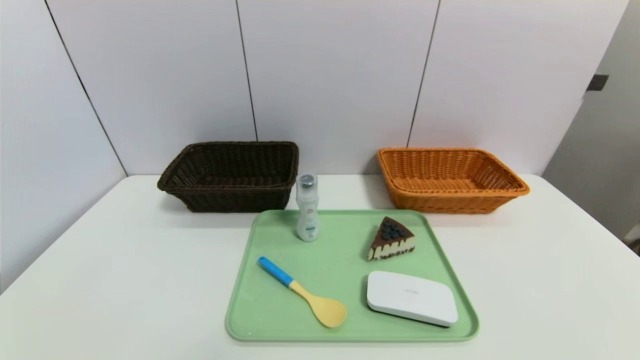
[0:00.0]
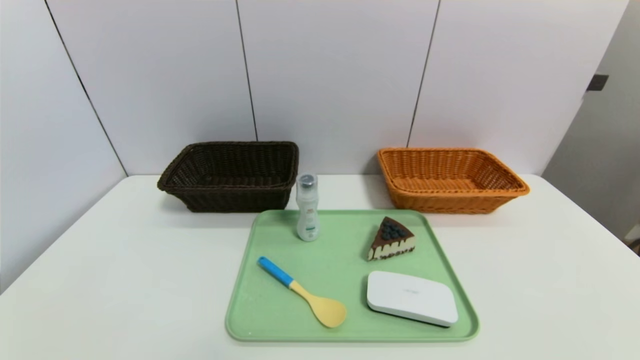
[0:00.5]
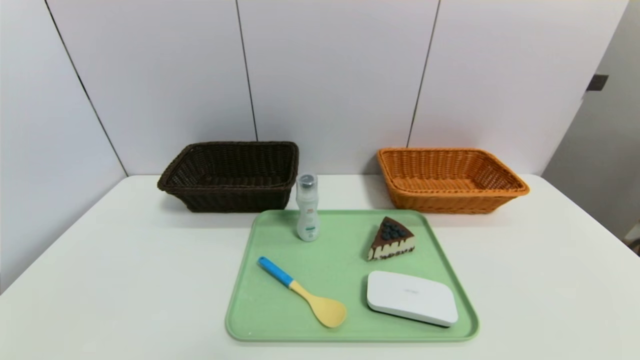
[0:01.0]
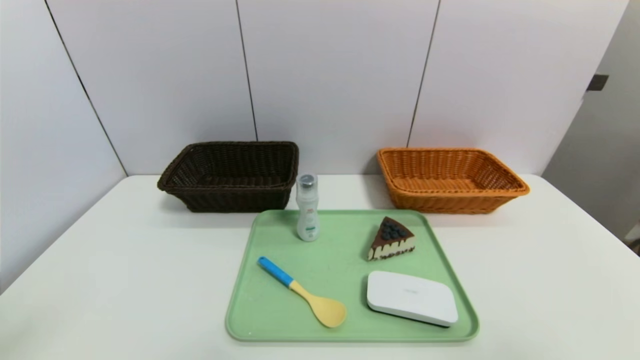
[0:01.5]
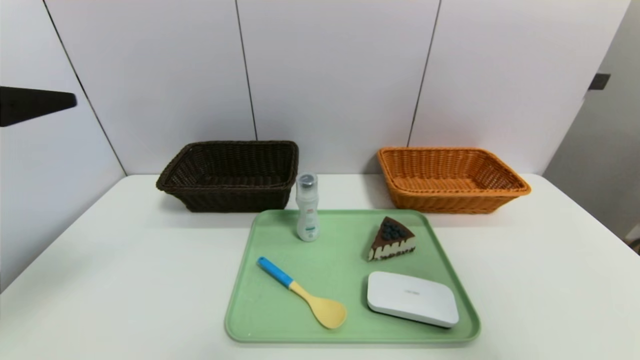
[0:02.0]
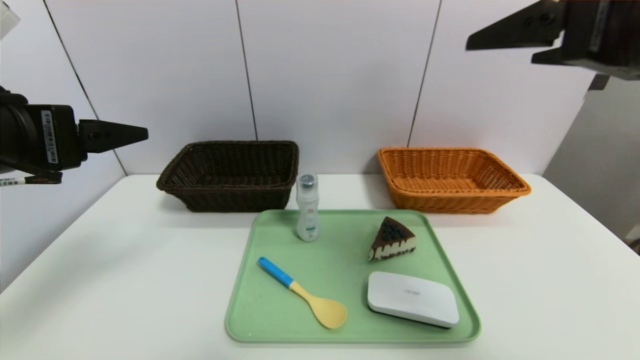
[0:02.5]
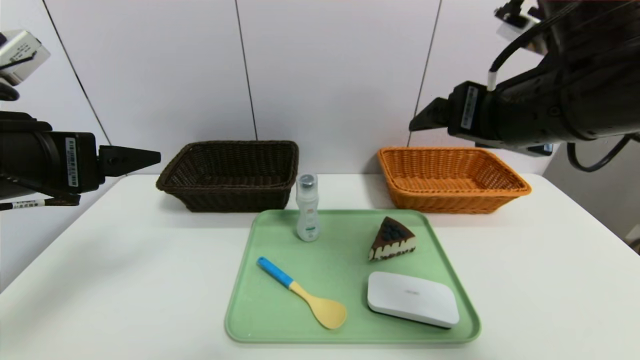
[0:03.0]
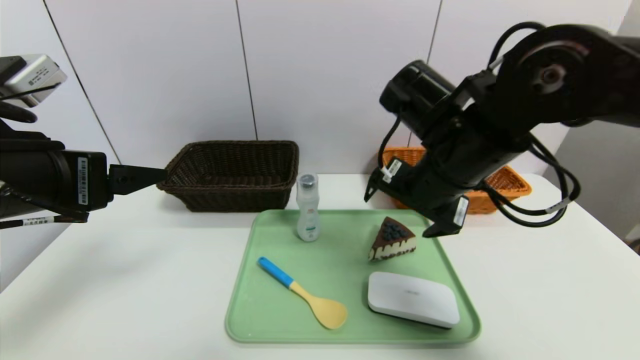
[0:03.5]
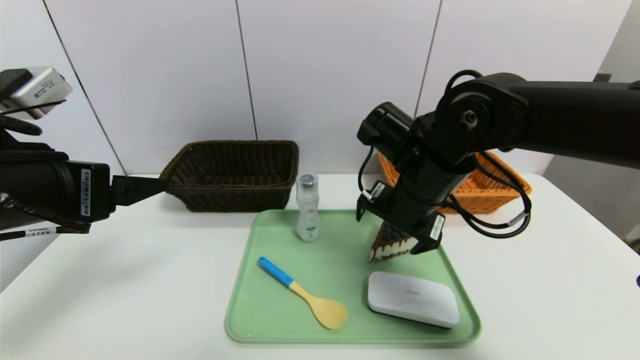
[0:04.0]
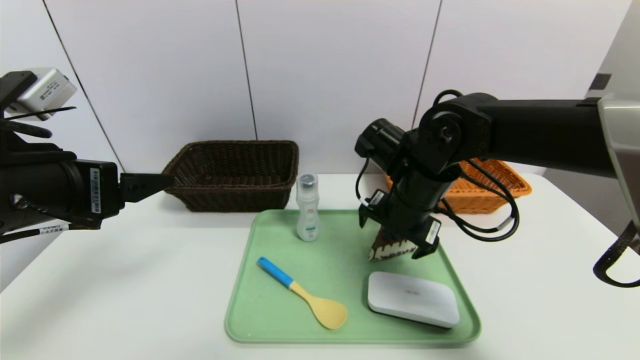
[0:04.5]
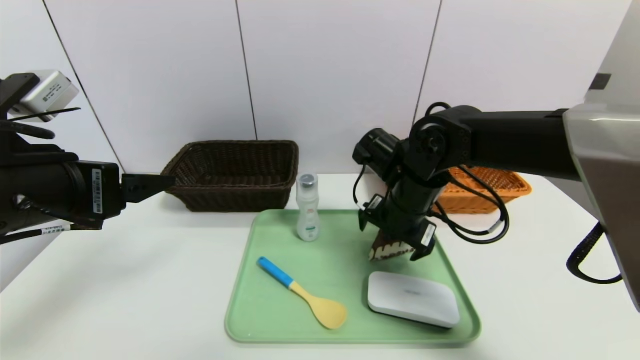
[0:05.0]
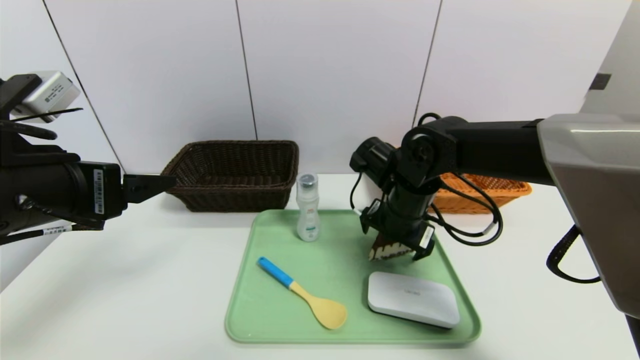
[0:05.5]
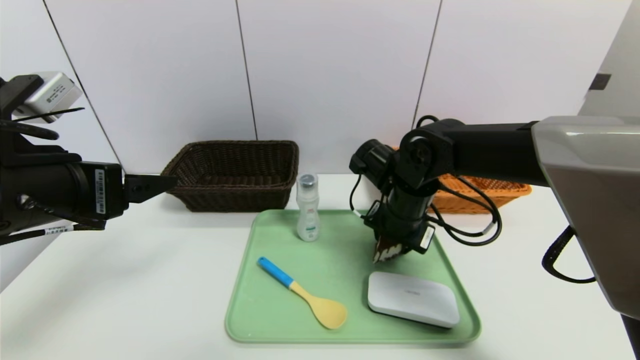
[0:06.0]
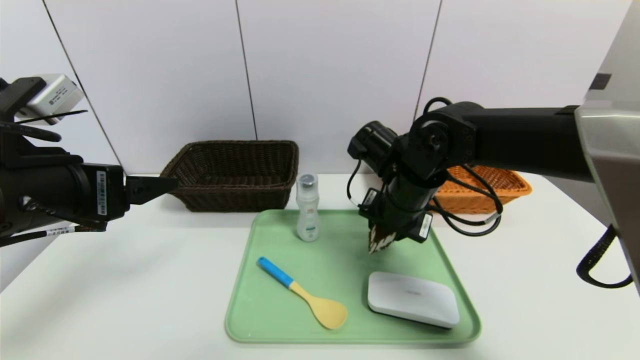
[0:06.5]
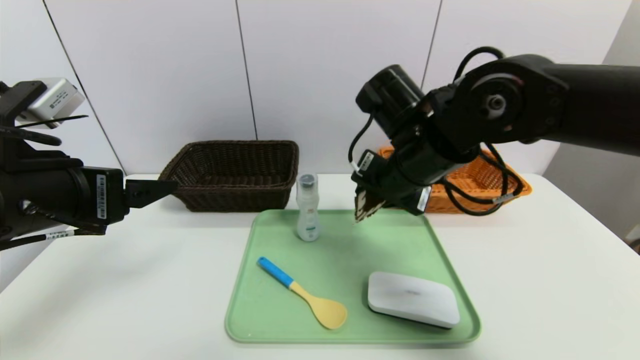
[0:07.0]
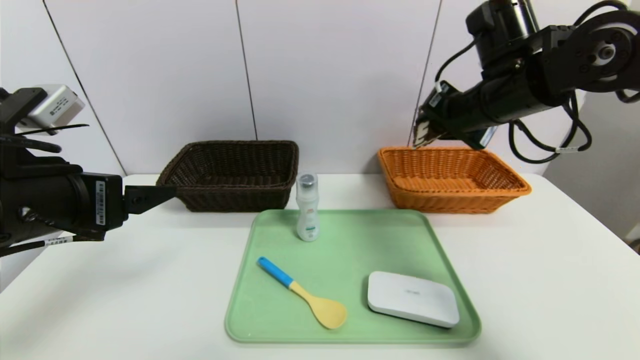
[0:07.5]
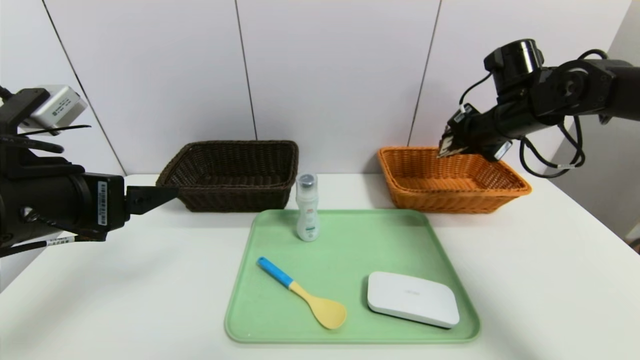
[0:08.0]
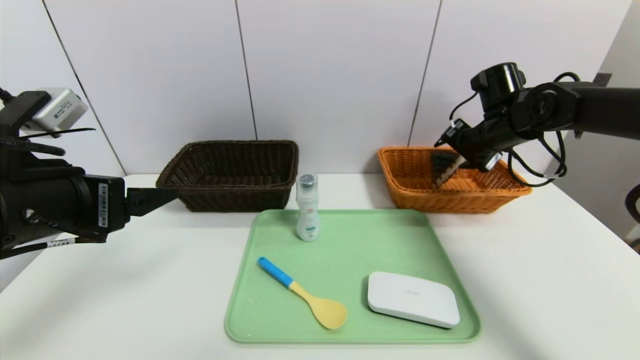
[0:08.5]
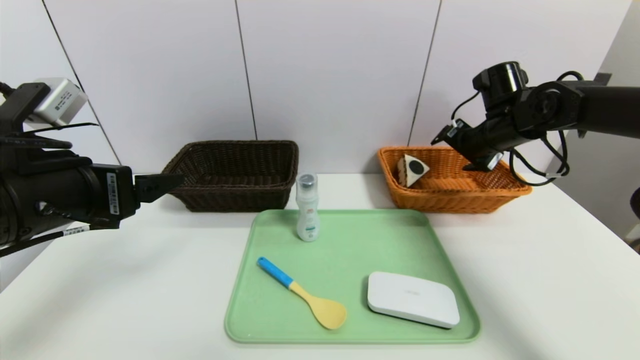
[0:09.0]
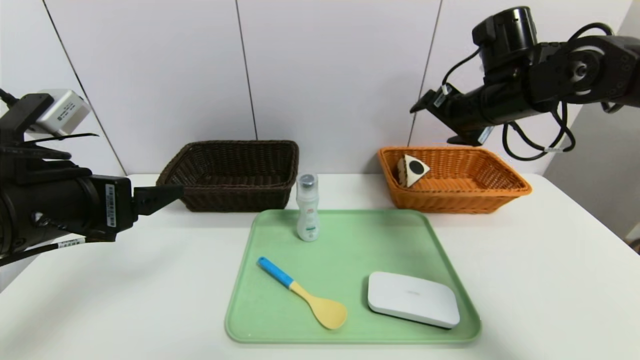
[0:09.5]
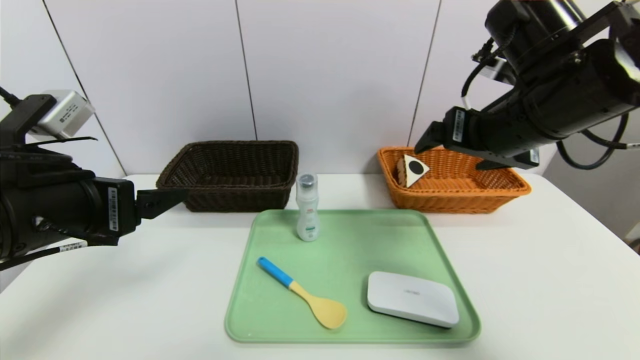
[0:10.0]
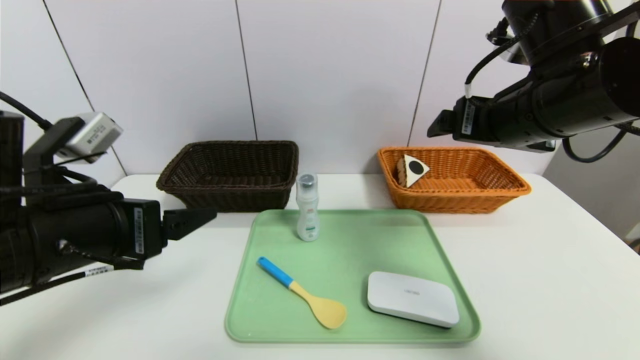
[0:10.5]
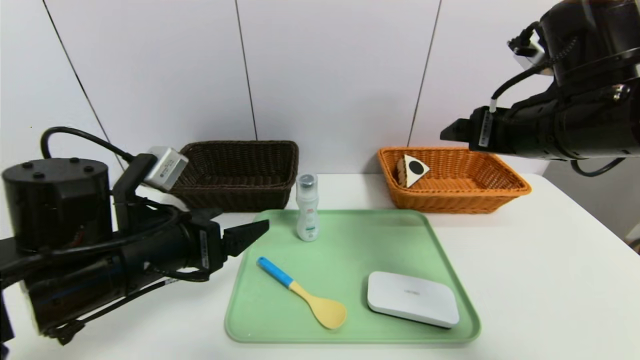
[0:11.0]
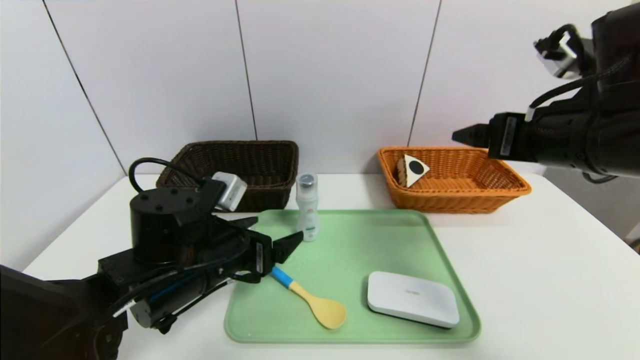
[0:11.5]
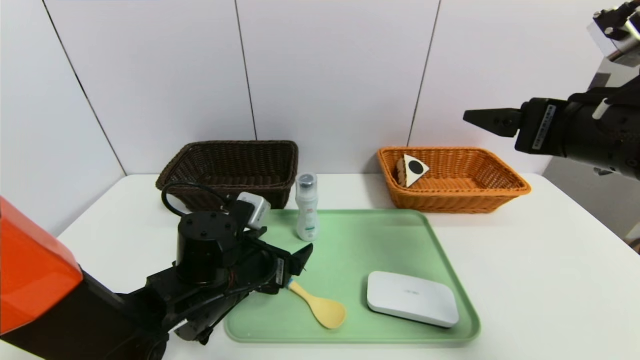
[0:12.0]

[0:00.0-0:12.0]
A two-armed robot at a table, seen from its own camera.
Task of the whole recording: place the food in the right basket with the right gripper, and place the non food items in the left basket with the left gripper.
Step, 0:00.0 to 0:08.5: Grasp the triangle cake and put it in the right basket.
0:00.0 to 0:02.0: The right gripper moves upward, approximately 35 cm; the left gripper heads upward and forward, covering some 30 cm.
0:02.0 to 0:04.0: The right gripper moves downward, to the left and forward, roughly 35 cm, while the left gripper moves downward, approximately 5 cm.
0:04.0 to 0:06.0: The right gripper shifts roughly 5 cm downward, and closes.
0:06.0 to 0:08.0: The right gripper is displaced to the right, upward and forward by approximately 20 cm.
0:08.0 to 0:10.0: The right gripper shifts some 15 cm backward, to the left and upward, and opens.
0:10.0 to 0:12.0: The right gripper moves backward and to the right, roughly 10 cm; the left gripper is displaced downward, to the right and forward by roughly 20 cm.

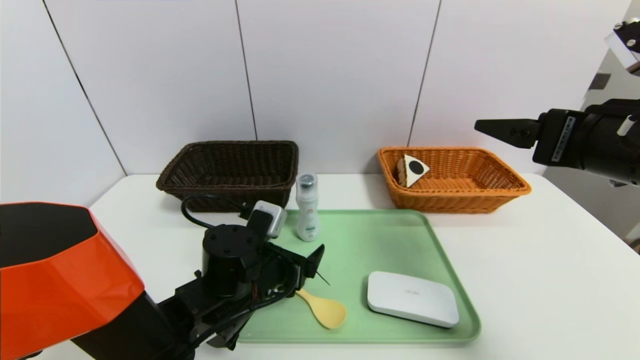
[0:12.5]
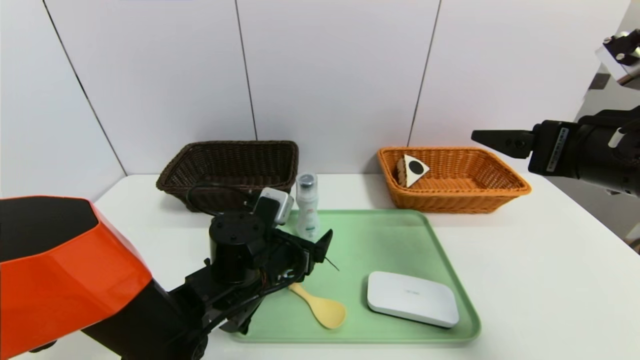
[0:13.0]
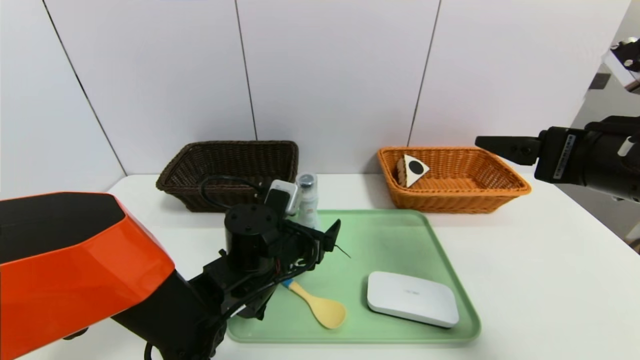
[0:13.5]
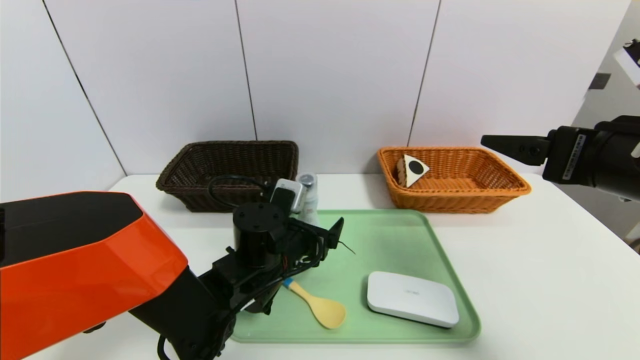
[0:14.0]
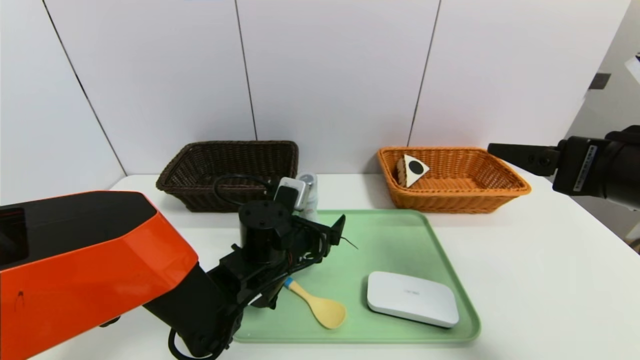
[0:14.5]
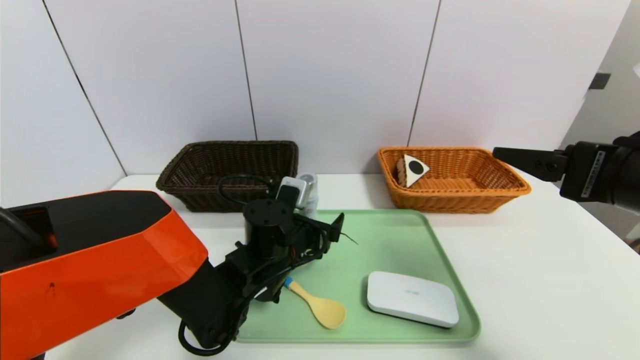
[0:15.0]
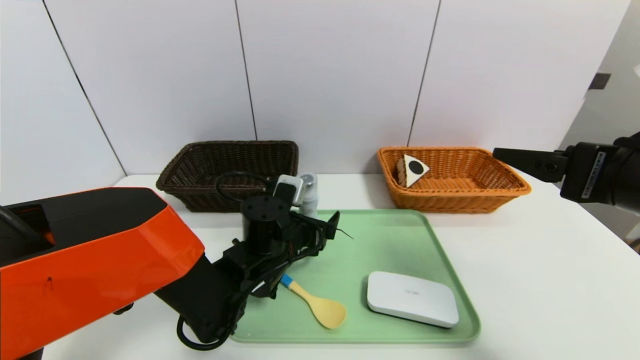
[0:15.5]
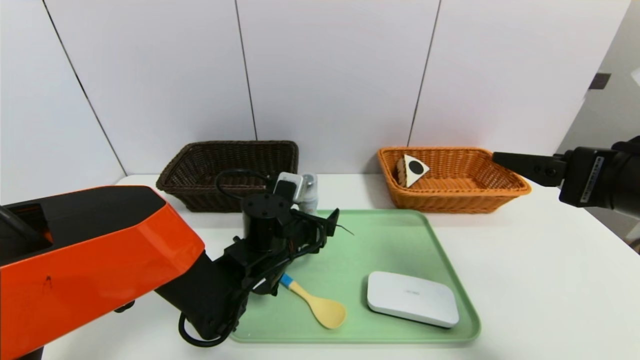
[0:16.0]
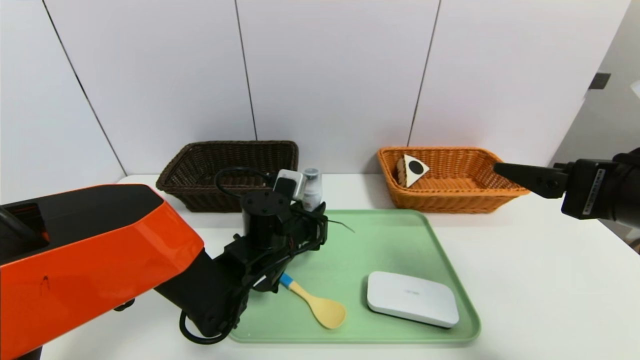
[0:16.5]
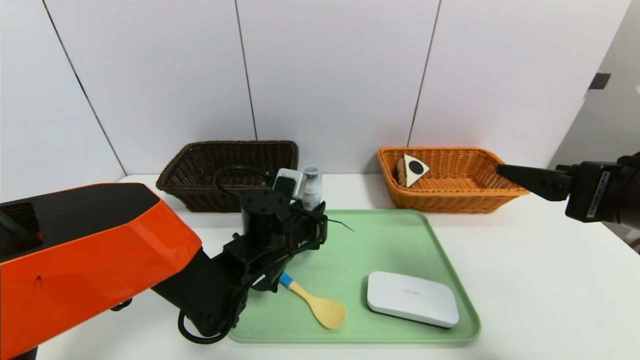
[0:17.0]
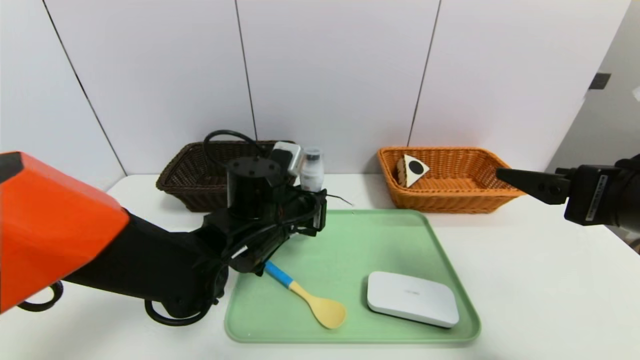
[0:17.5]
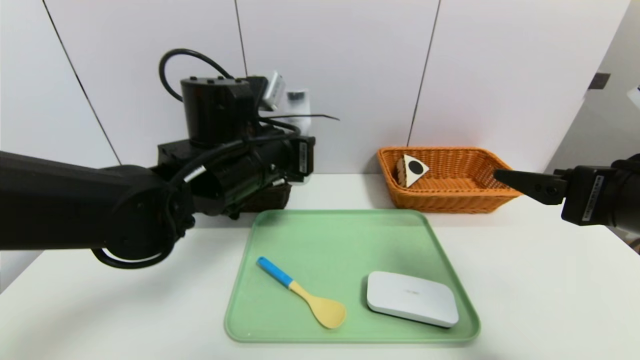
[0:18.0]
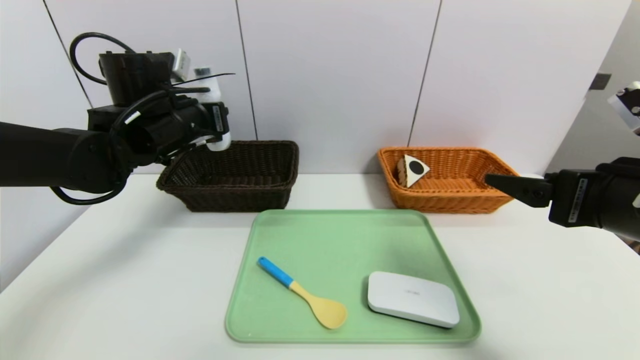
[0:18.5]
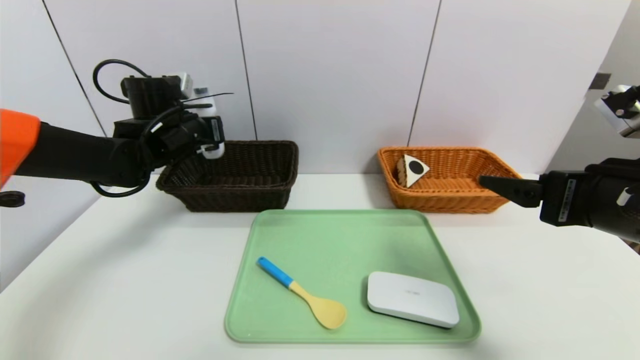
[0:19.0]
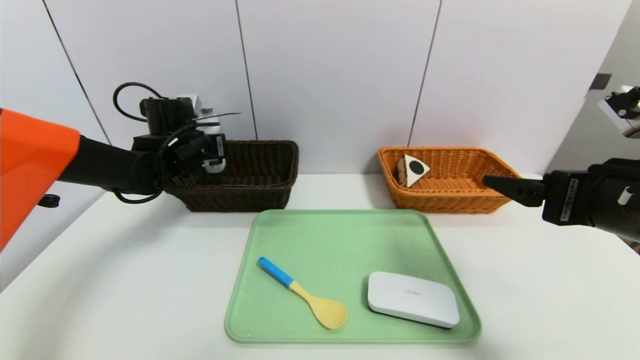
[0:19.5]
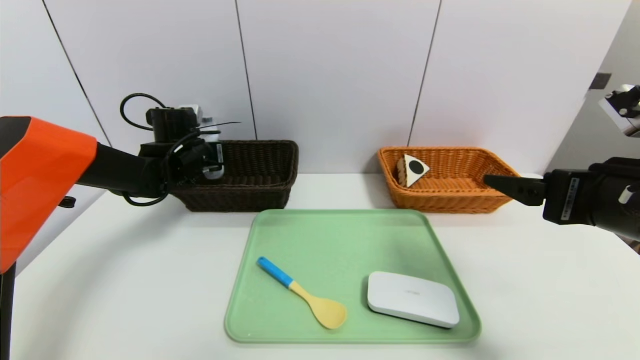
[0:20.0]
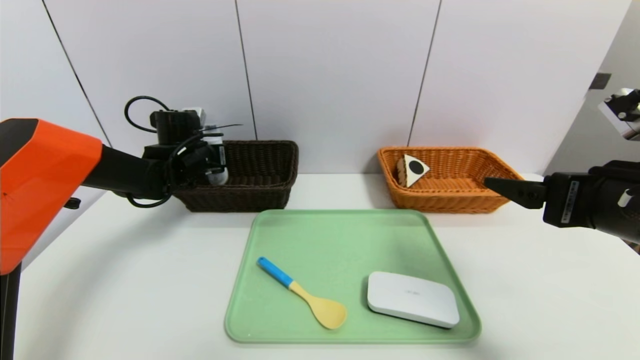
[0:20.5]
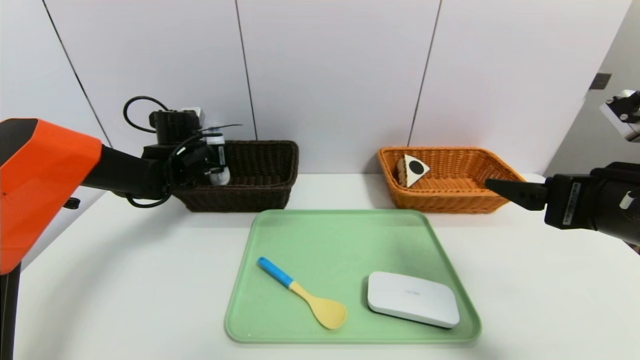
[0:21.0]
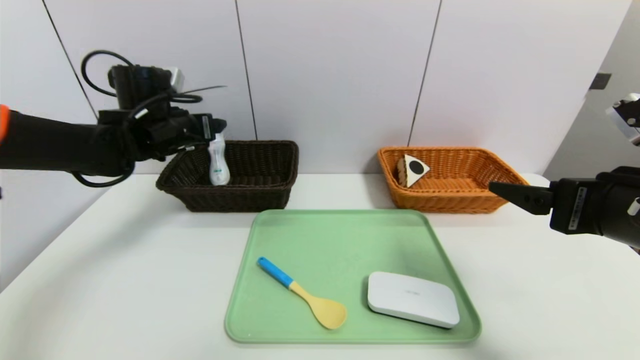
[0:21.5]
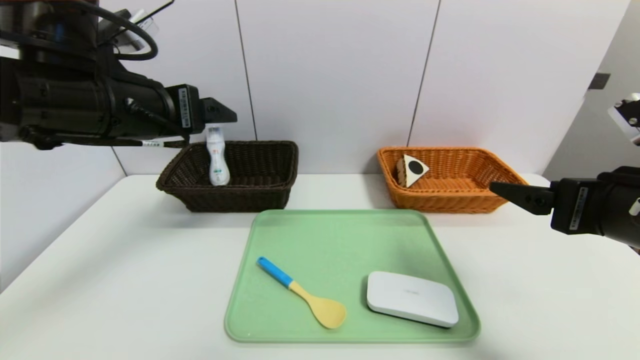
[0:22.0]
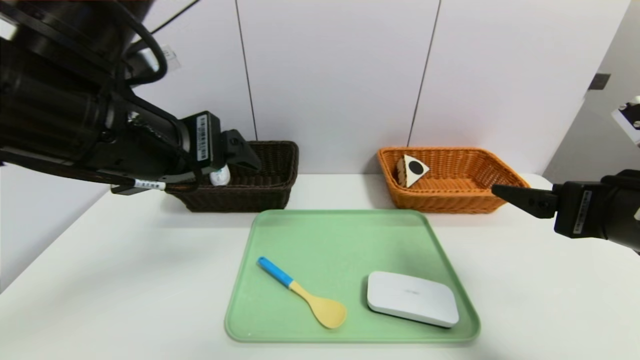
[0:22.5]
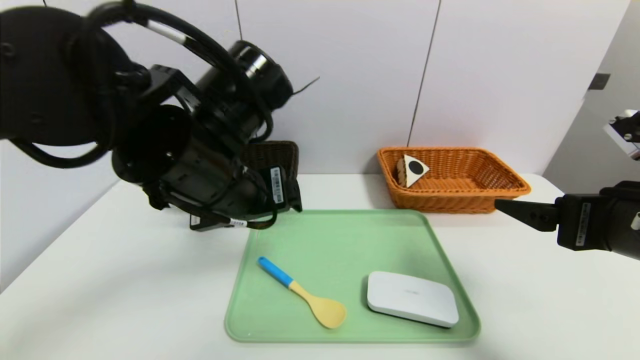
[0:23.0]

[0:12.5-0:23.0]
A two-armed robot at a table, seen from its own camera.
Task of the whole recording: place the food in the right basket with the right gripper, and place the non food items in the left basket with the left gripper.
Step, 0:12.5 to 0:21.0: Grasp the cleaning agent and put it in the left basket.
0:12.5 to 0:14.5: The left gripper moves approximately 5 cm.
0:14.5 to 0:16.5: The left gripper closes.
0:16.5 to 0:19.0: The left gripper heads to the left, upward and forward, covering approximately 25 cm.
0:19.0 to 0:21.0: The left gripper shifts about 5 cm downward, and opens.
0:21.0 to 0:23.0: The left gripper moves backward, to the right and upward, approximately 30 cm.
